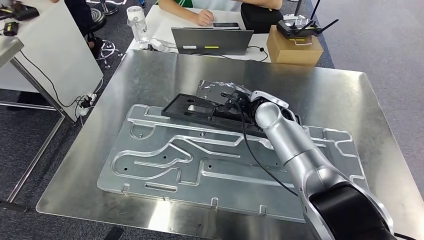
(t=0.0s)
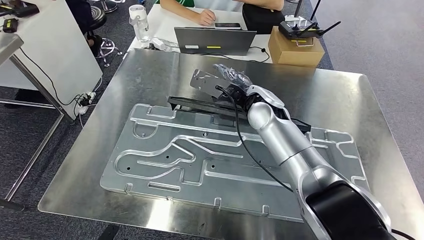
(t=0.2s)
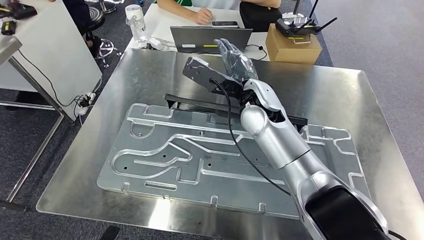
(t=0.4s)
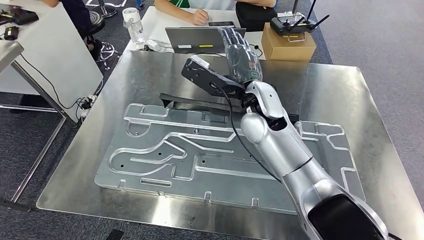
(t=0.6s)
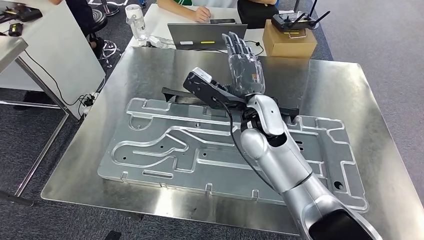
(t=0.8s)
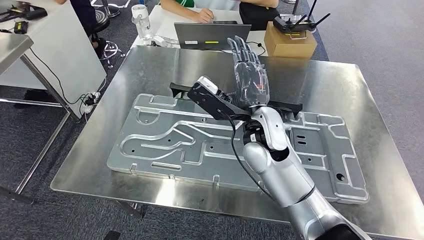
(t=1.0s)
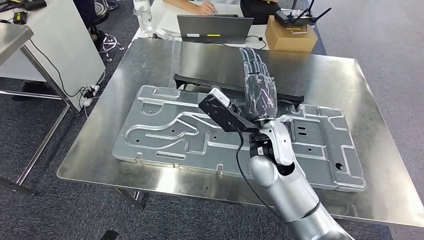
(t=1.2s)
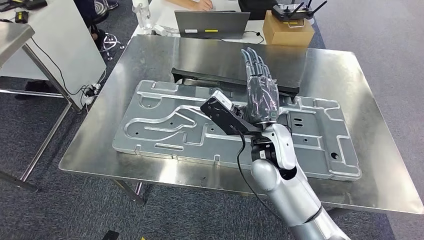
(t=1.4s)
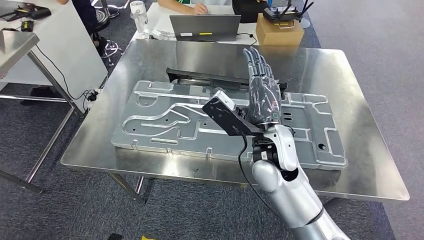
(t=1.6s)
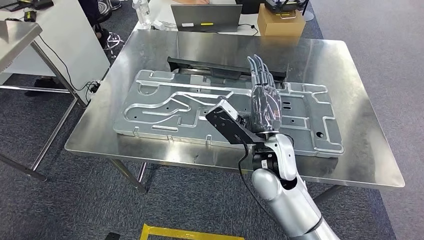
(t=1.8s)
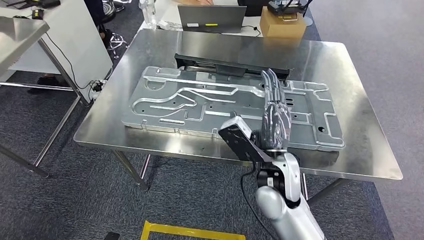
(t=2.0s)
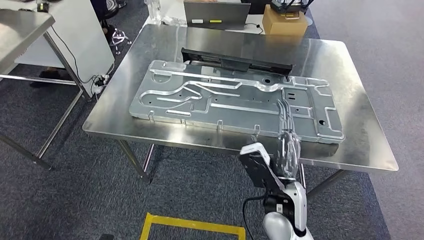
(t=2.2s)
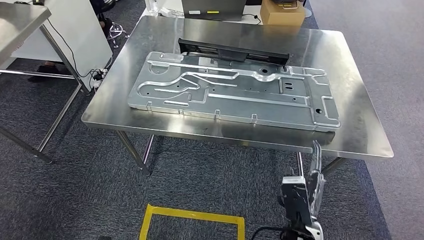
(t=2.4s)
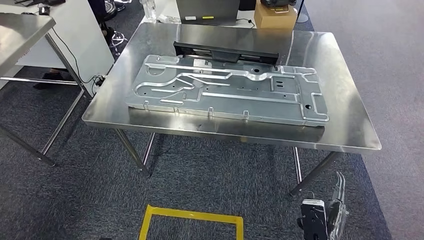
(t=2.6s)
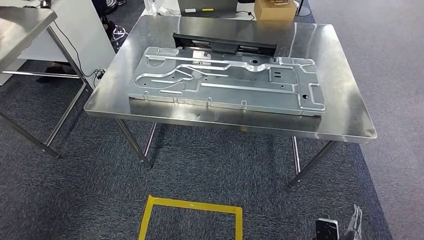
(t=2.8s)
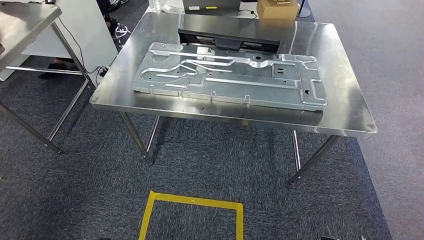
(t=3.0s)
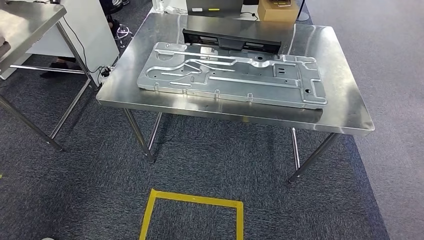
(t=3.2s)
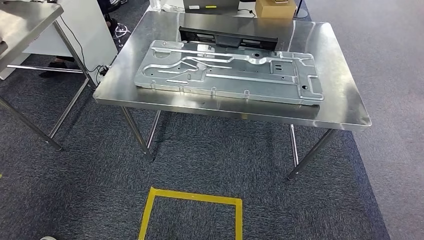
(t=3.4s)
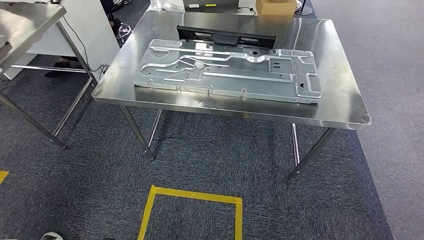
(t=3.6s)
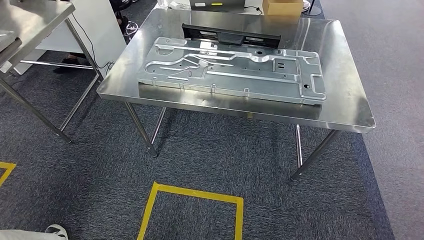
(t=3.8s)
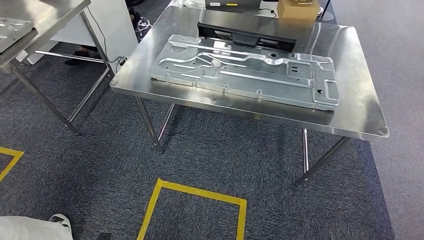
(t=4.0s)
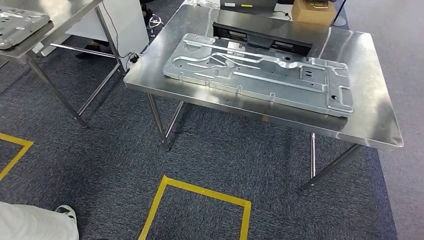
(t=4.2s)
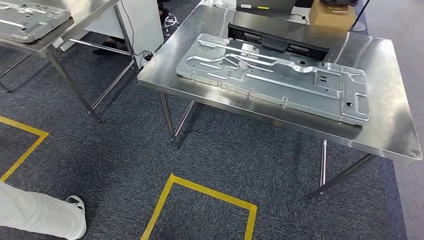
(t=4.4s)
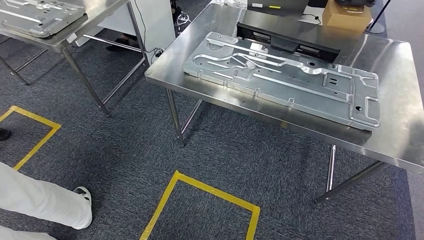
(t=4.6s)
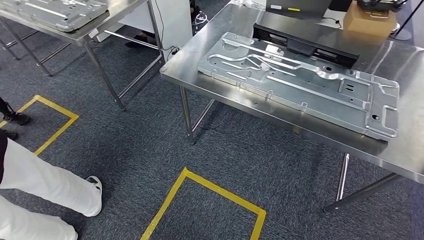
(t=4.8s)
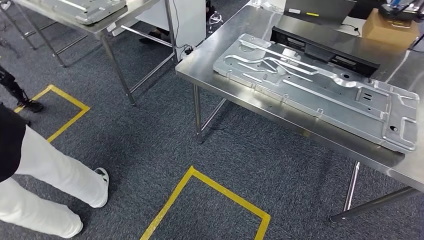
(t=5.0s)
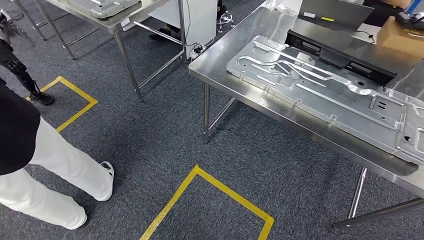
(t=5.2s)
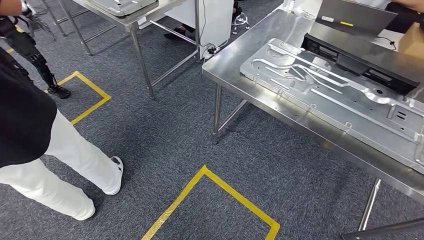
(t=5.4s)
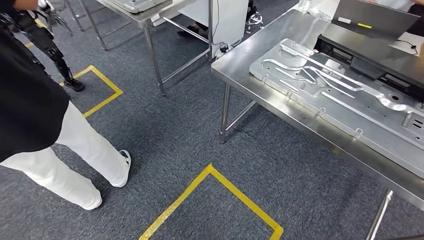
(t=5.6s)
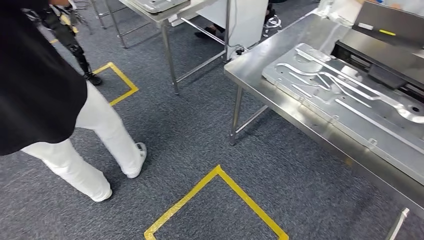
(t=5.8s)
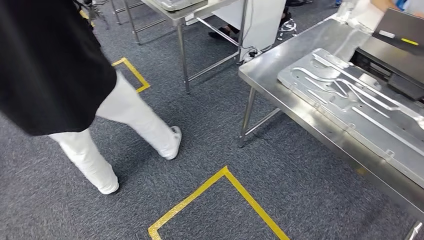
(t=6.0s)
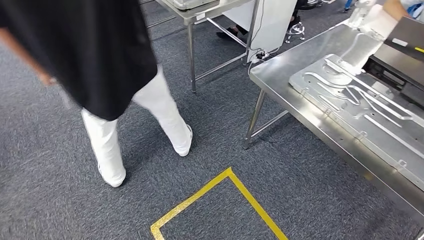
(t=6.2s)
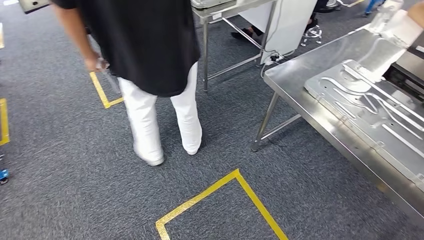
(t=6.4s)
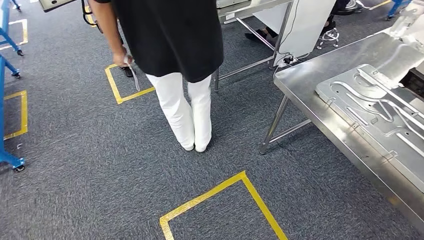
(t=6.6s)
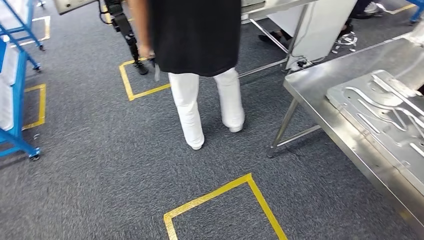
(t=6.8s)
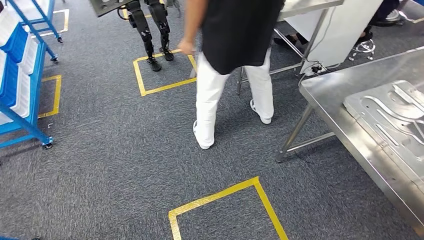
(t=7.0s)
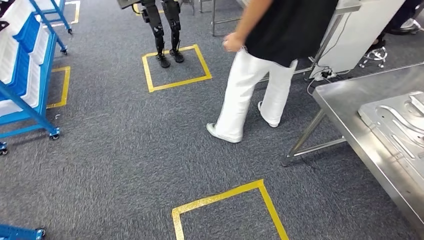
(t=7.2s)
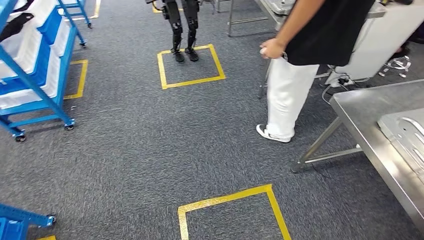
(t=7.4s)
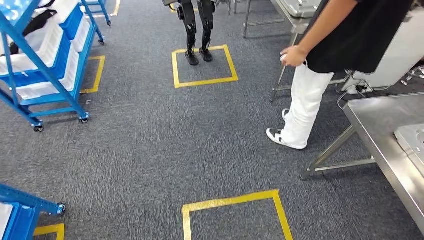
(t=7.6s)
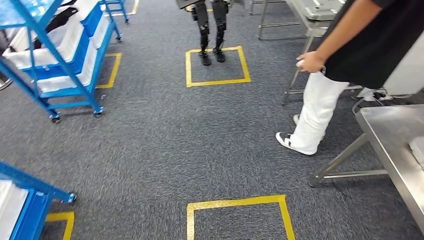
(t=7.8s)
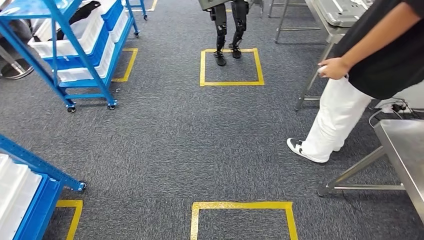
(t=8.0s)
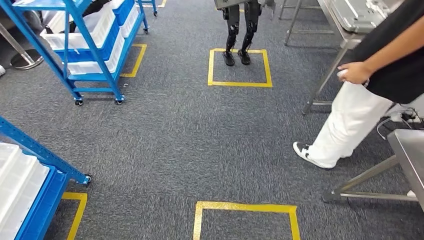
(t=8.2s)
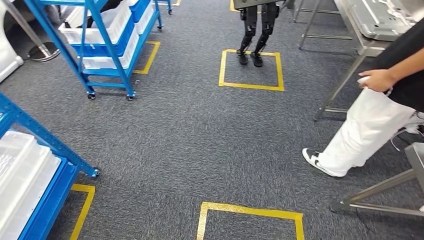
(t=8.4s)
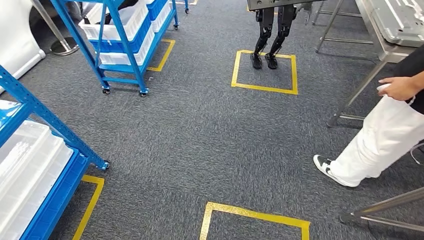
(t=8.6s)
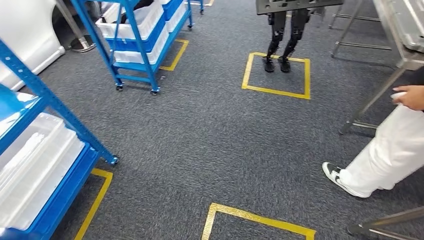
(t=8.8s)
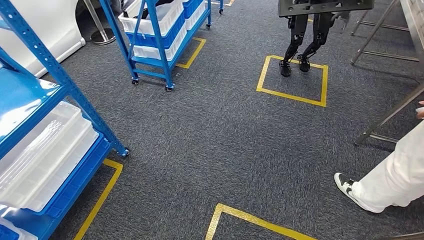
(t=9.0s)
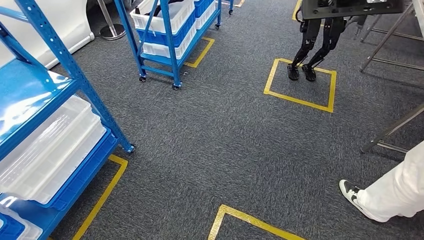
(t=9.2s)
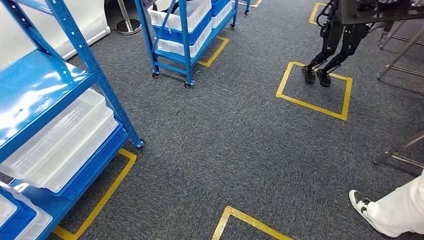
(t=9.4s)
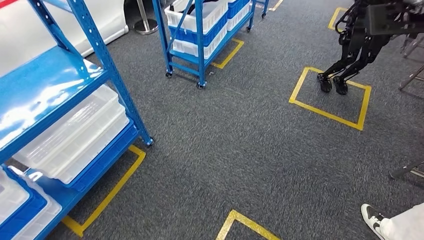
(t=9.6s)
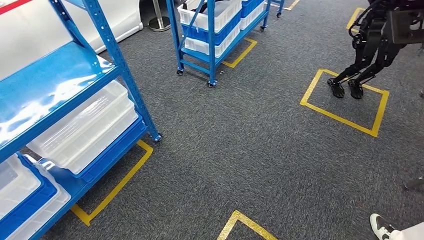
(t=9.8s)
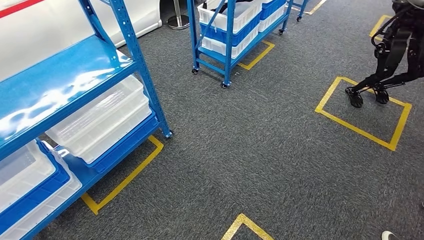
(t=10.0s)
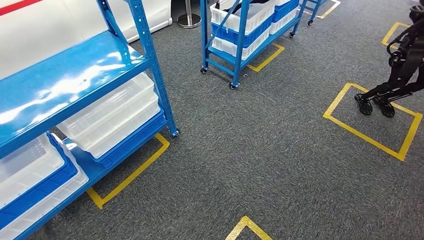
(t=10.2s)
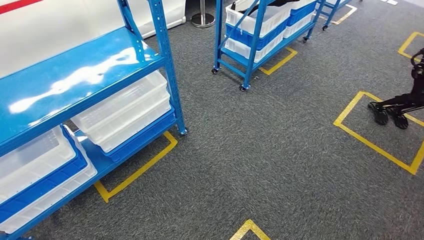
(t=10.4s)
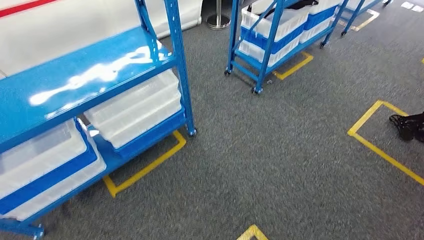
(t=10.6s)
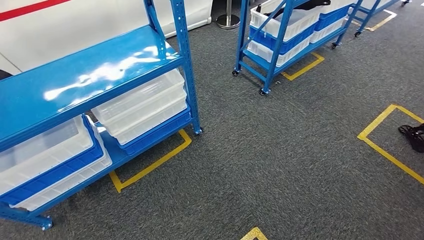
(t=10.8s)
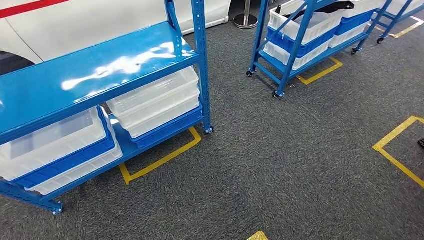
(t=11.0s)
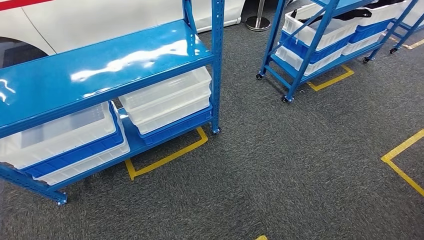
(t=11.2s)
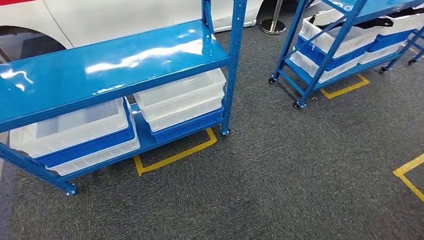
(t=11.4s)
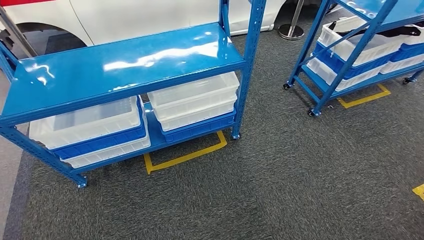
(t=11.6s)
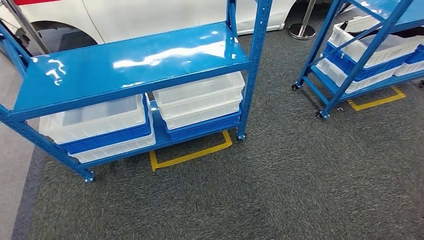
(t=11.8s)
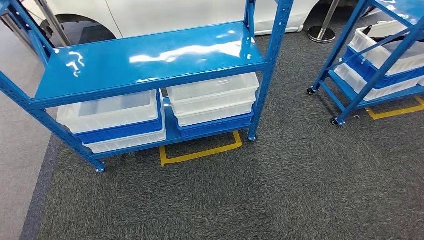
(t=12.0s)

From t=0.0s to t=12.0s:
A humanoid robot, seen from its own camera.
Step, from t=0.0s to t=2.0s: Insert the large material into the corresponding slot on the workbench.

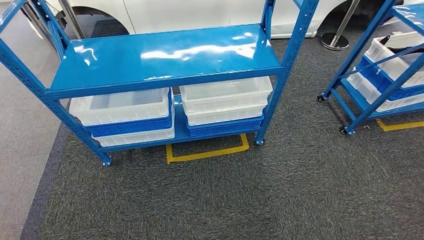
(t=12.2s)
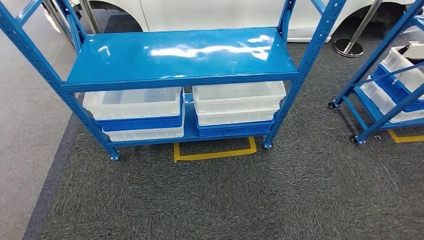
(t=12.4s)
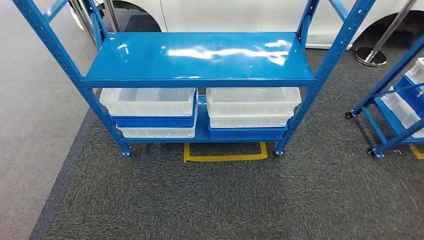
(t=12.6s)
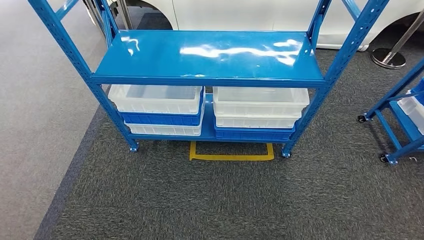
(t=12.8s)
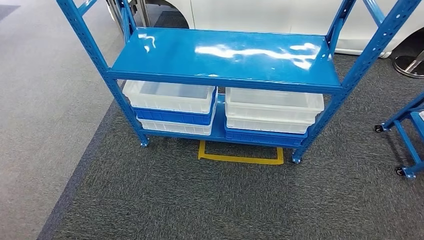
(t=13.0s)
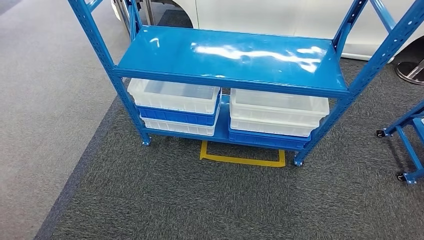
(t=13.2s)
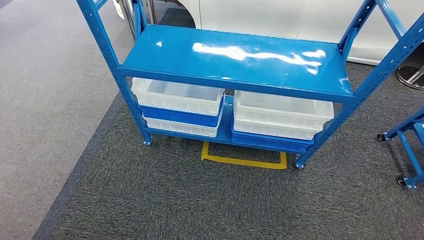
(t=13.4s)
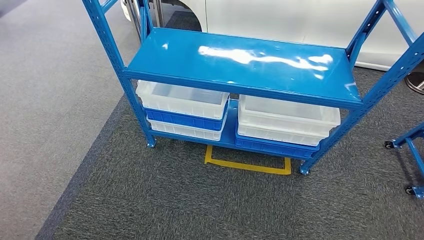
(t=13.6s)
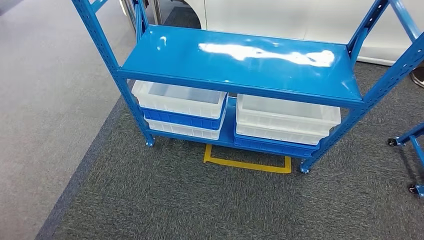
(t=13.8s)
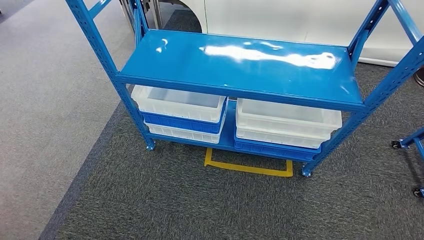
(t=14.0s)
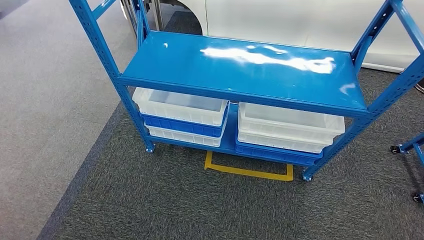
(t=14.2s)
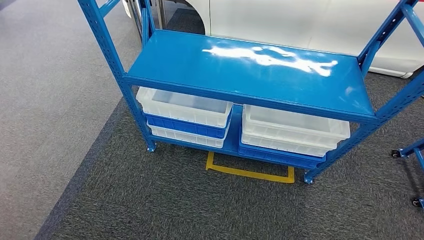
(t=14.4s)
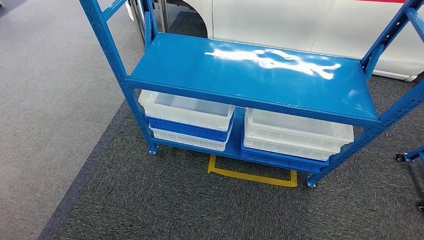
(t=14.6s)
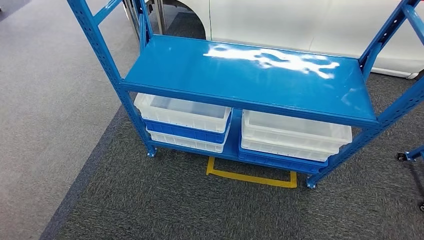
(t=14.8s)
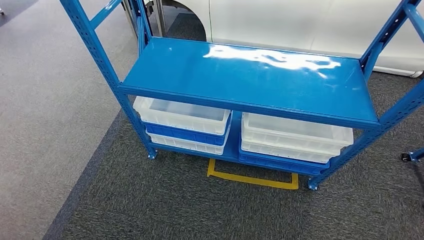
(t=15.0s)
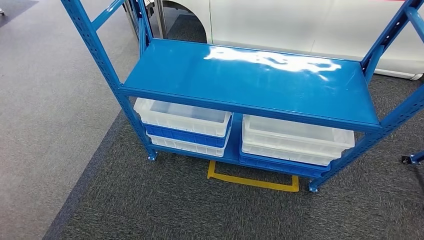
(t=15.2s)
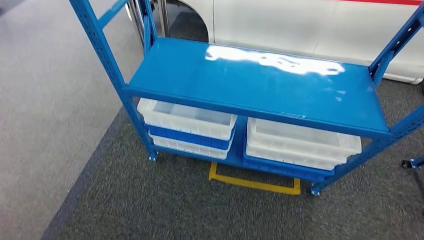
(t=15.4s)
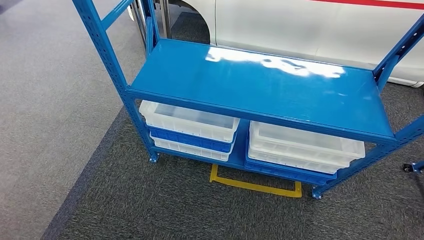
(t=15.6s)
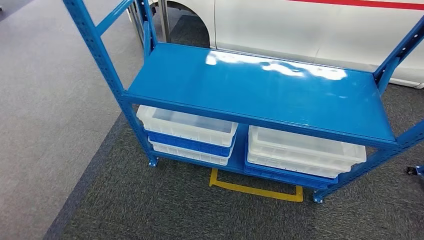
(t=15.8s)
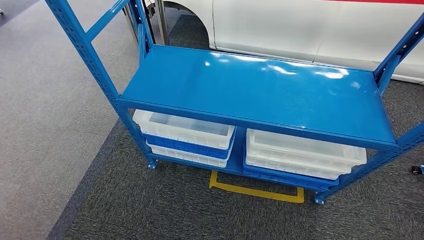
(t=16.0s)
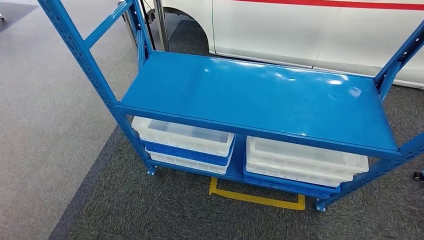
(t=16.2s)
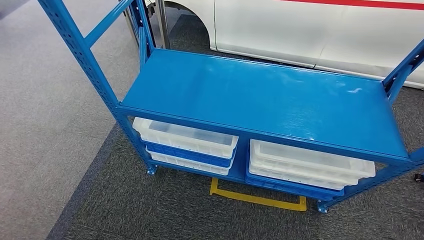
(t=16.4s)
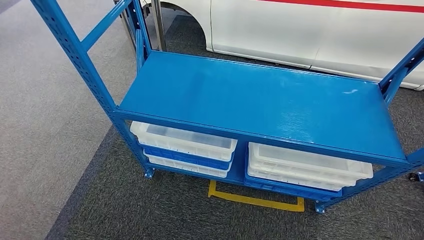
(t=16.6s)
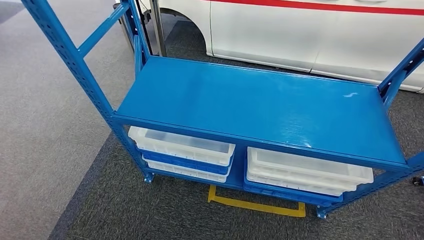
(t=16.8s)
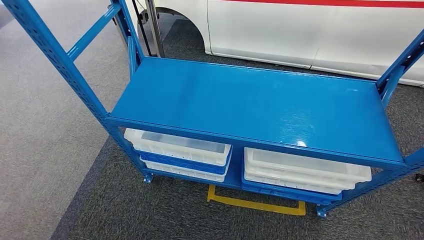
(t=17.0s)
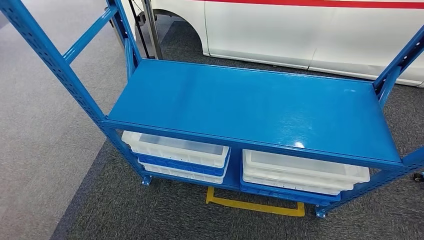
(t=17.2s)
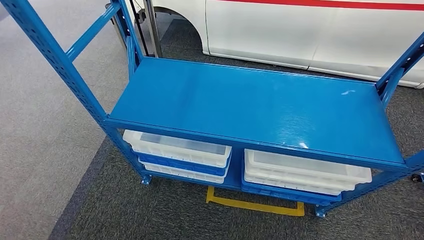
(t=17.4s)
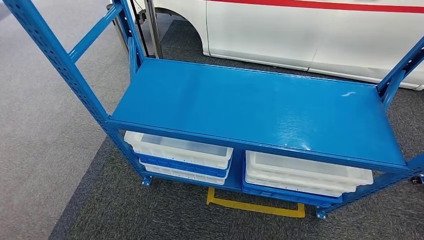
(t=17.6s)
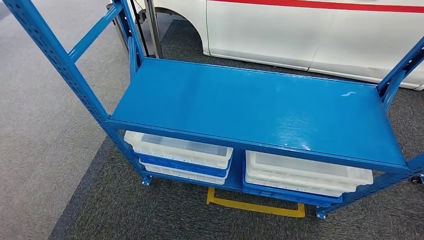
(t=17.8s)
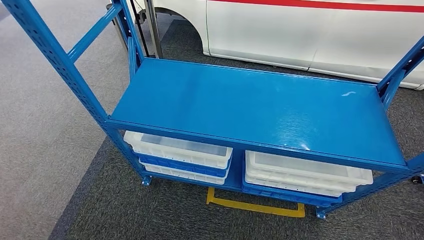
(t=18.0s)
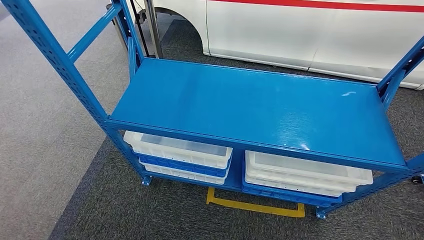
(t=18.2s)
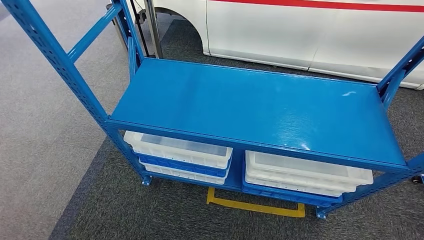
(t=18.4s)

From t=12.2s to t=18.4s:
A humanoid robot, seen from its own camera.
Step, from t=12.2s to t=18.2s: Move to the initial position of the shelf.
From t=16.8s to t=18.4s: The hands stay close to where they were, moving slightly.
